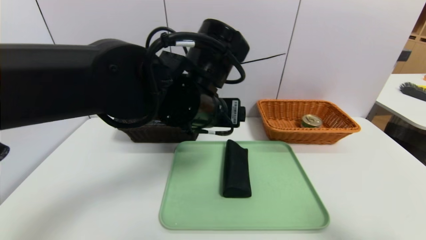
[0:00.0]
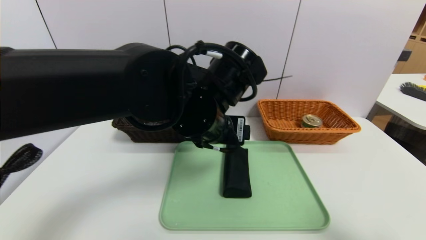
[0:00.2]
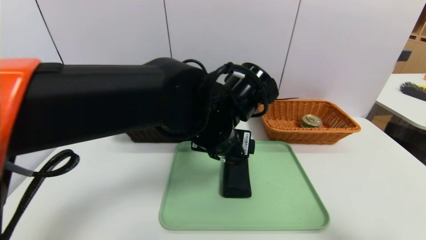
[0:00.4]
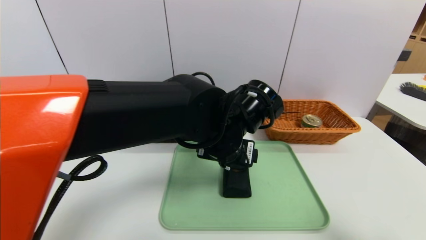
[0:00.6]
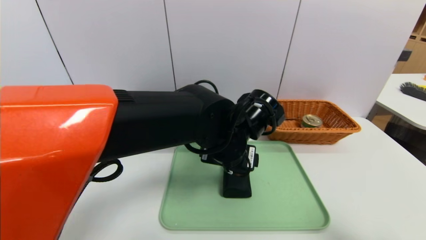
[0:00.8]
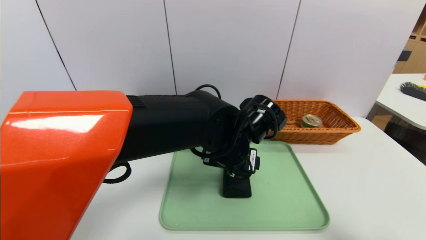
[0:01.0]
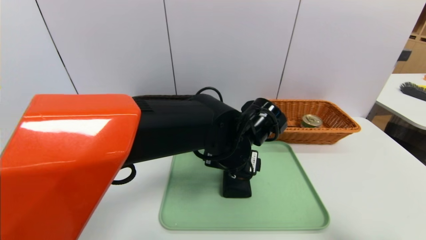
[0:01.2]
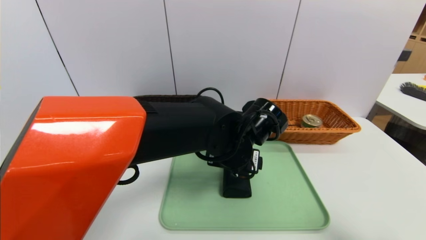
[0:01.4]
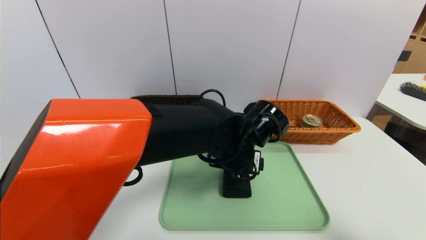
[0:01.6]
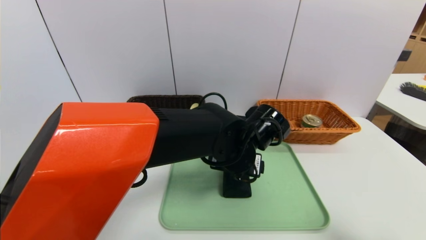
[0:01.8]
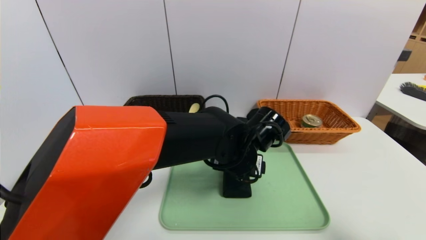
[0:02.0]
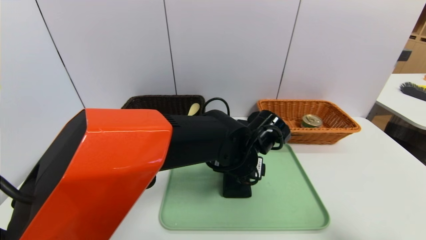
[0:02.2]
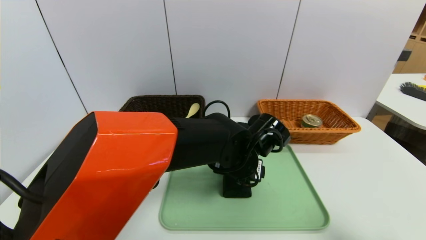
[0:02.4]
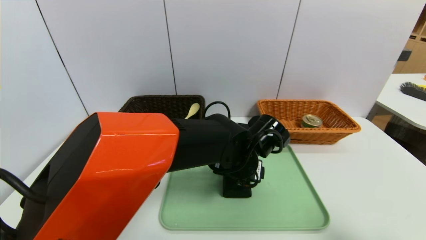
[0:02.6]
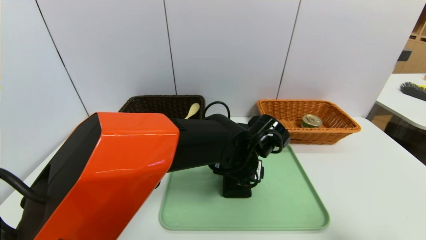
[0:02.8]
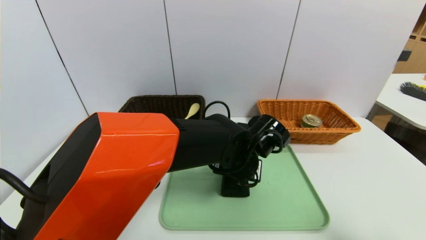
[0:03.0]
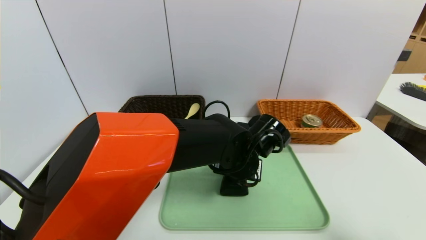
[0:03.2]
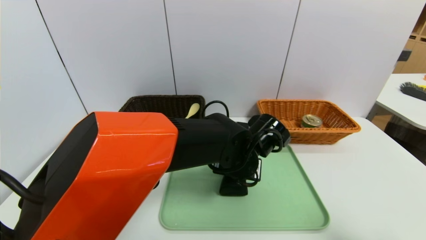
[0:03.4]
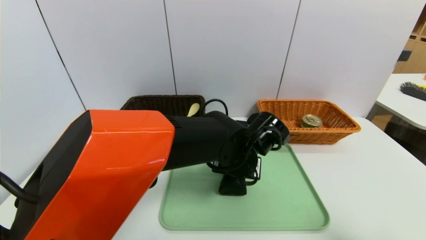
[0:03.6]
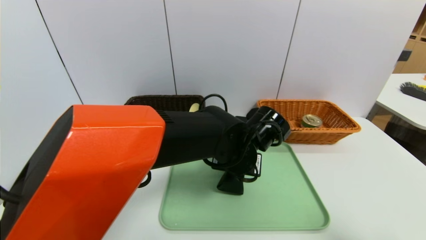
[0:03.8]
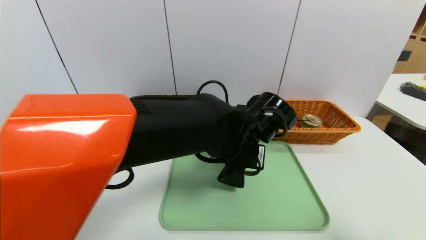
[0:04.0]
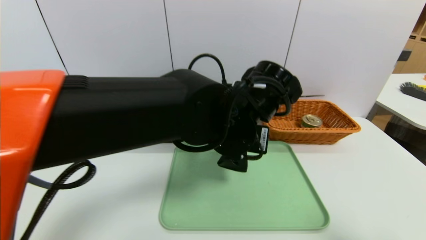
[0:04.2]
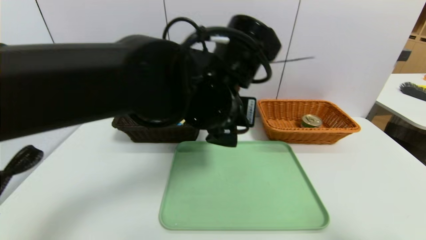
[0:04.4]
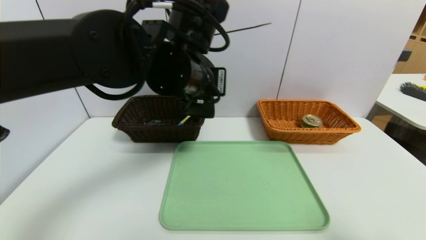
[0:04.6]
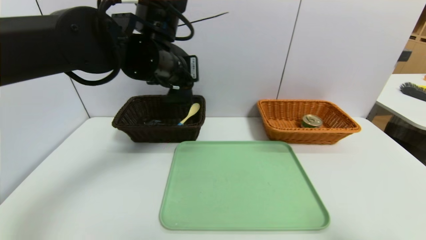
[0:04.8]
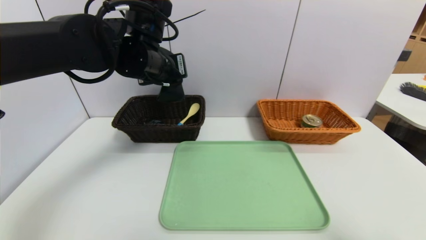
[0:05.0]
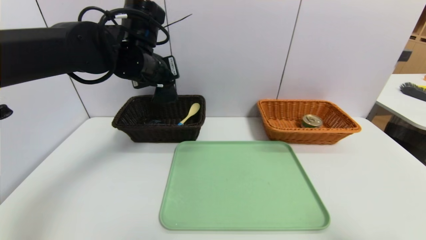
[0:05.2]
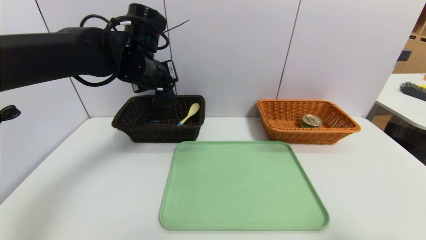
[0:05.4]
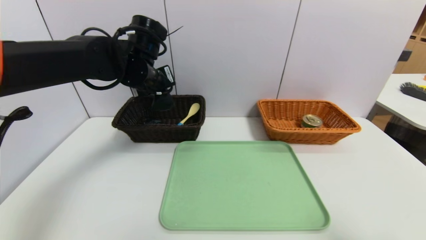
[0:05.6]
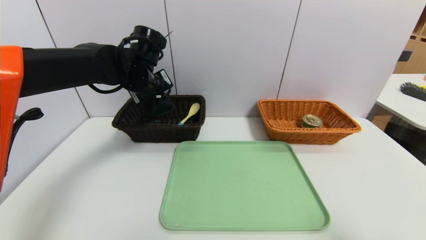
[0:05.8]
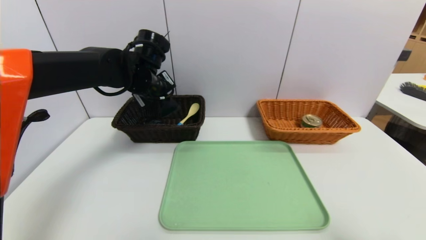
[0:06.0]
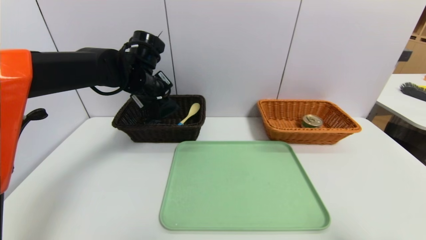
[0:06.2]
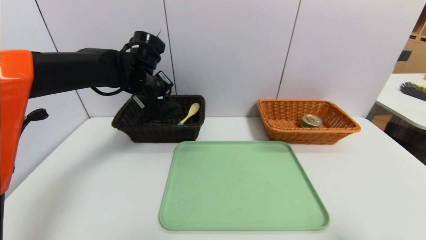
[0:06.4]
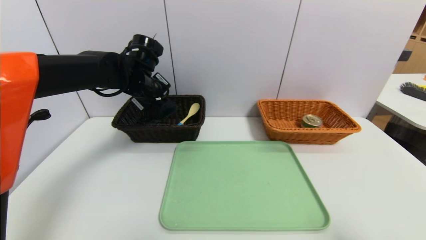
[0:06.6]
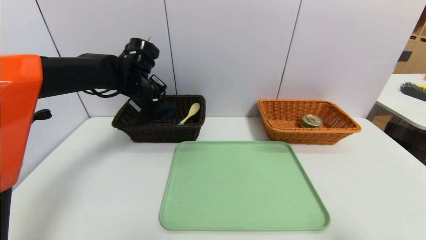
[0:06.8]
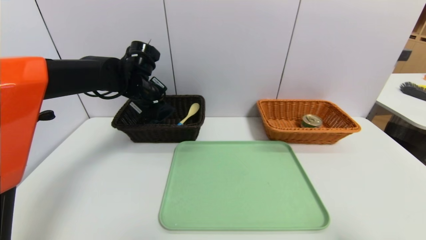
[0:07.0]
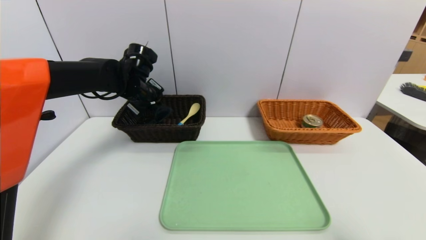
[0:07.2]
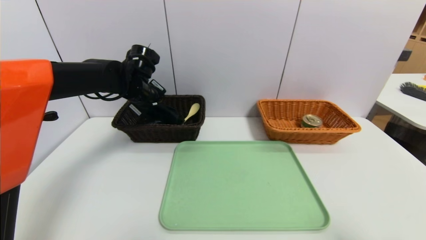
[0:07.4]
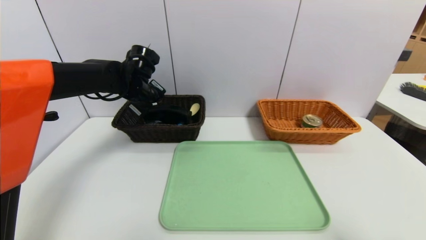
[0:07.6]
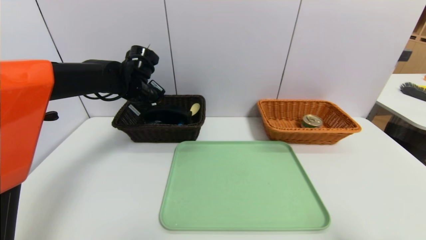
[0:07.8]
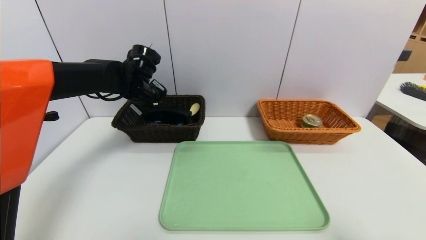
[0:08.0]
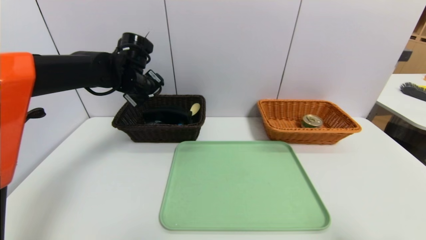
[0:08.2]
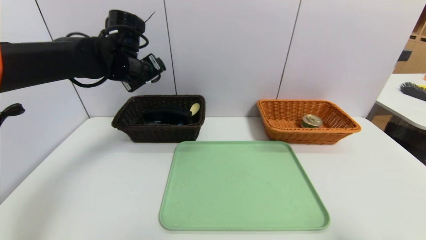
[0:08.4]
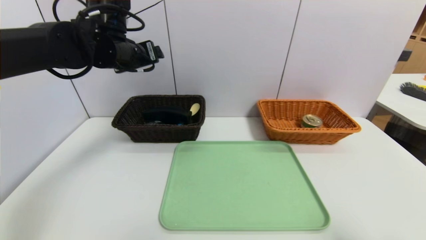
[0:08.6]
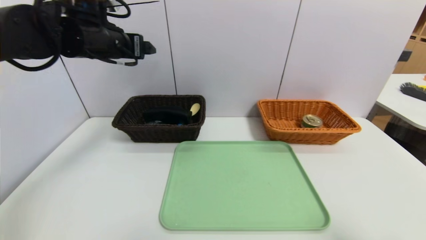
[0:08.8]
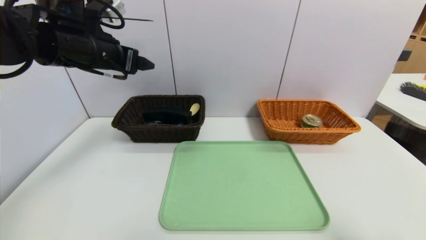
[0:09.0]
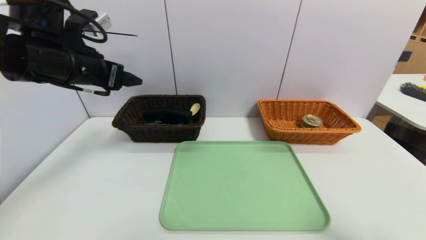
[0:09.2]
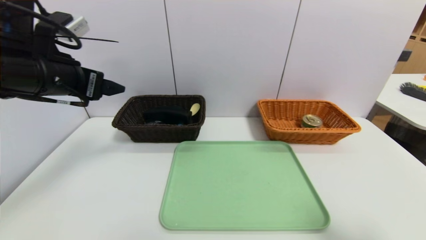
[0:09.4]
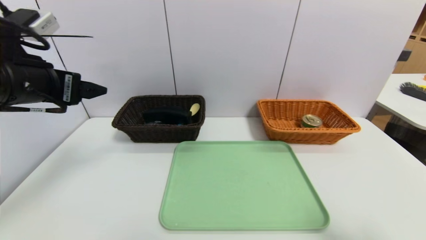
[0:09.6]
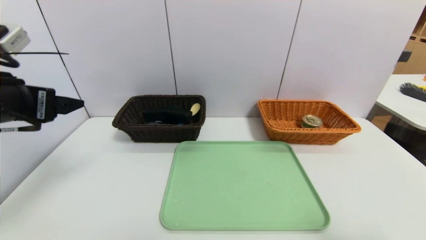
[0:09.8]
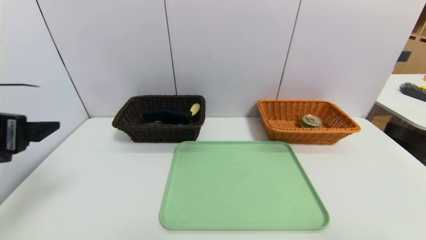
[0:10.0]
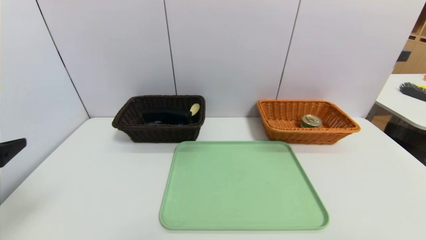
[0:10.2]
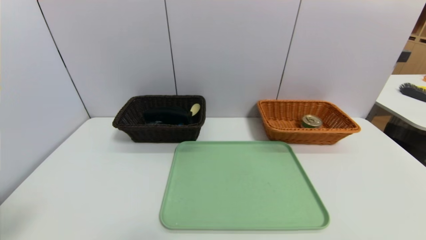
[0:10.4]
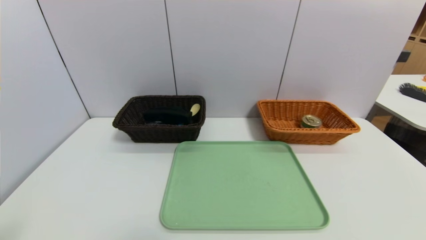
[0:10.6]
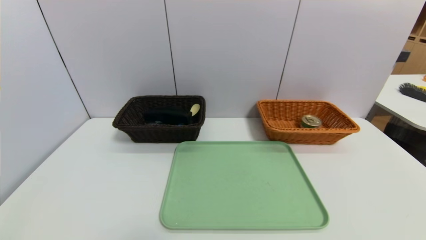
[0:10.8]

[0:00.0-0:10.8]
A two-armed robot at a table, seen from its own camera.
Task of the whole recording: place the food in the right basket with the right gripper, and place the non food items in the left basket with the left gripper.
Step, 0:00.0 to 0:07.8: Grasp the glasses case and put it in the left basket.
0:00.0 to 0:01.6: The left gripper is displaced downward and to the right by approximately 10 cm.
0:01.6 to 0:03.0: The left gripper closes.
0:03.0 to 0:04.6: The left gripper is displaced upward and to the left by approximately 20 cm, and closes up.
0:04.6 to 0:06.2: The left gripper goes some 15 cm forward, to the left and downward.
0:06.2 to 0:07.8: The left gripper opens up.
0:07.8 to 0:09.2: The left gripper travels backward and upward by approximately 15 cm.
0:09.2 to 0:10.8: The left gripper moves backward, some 30 cm. Meanwhile the right gripper goes roughly 10 cm backward and downward.
